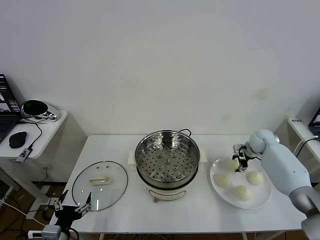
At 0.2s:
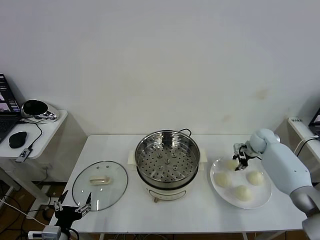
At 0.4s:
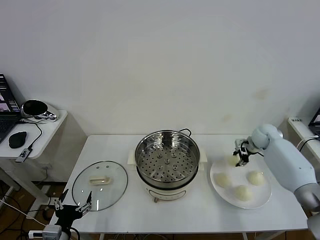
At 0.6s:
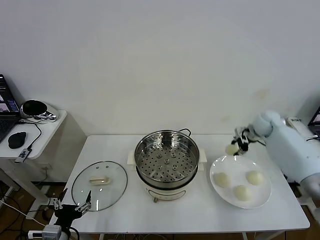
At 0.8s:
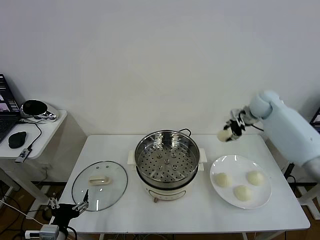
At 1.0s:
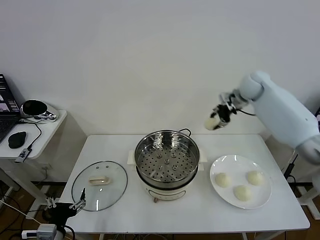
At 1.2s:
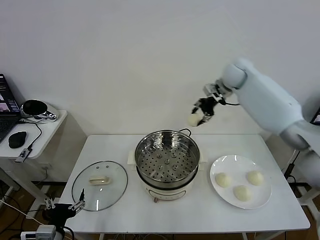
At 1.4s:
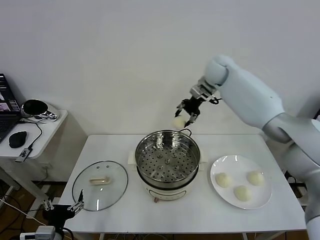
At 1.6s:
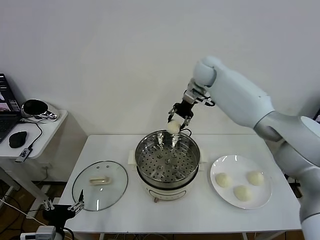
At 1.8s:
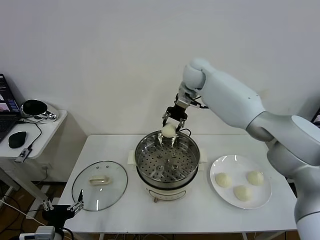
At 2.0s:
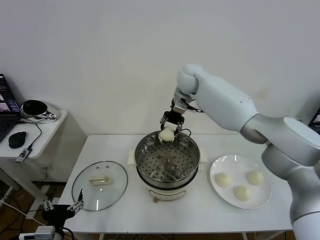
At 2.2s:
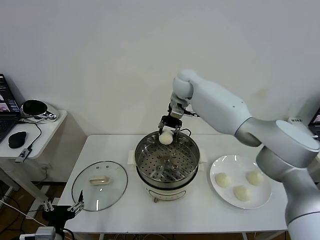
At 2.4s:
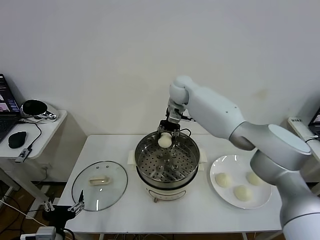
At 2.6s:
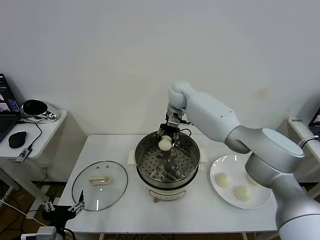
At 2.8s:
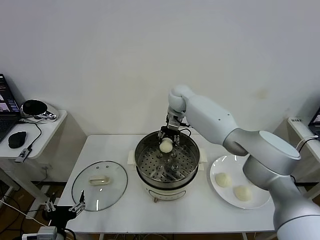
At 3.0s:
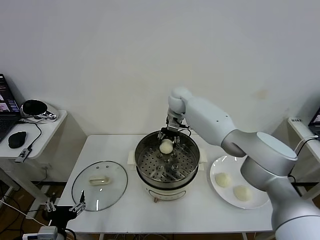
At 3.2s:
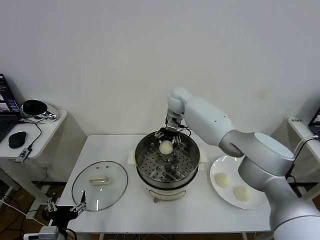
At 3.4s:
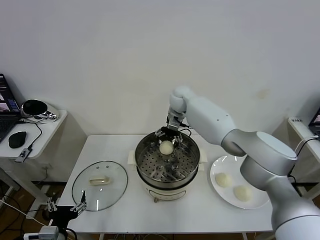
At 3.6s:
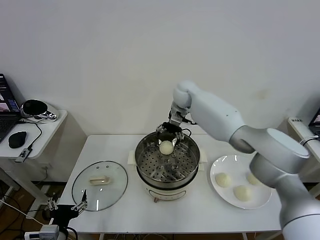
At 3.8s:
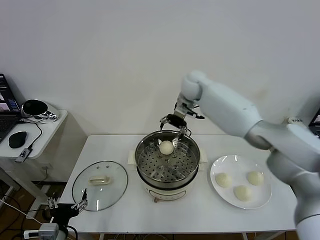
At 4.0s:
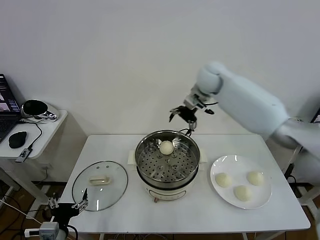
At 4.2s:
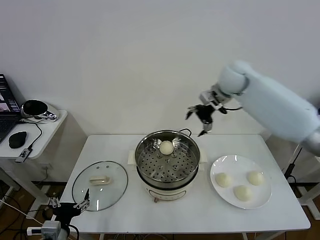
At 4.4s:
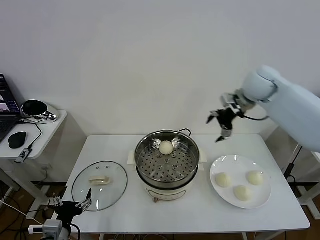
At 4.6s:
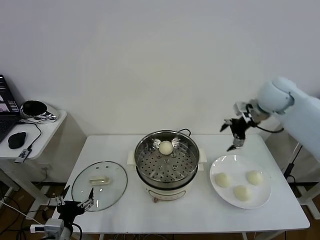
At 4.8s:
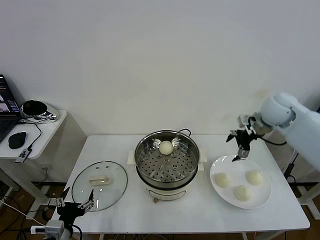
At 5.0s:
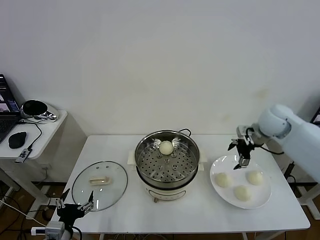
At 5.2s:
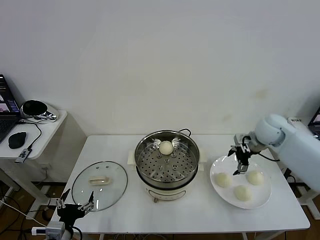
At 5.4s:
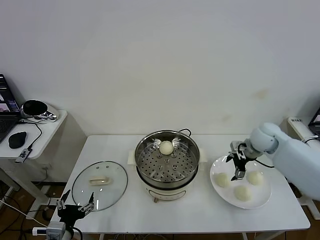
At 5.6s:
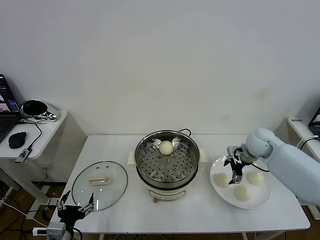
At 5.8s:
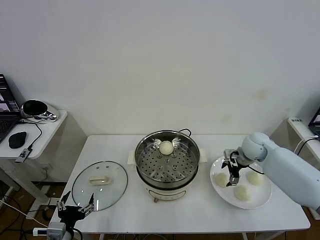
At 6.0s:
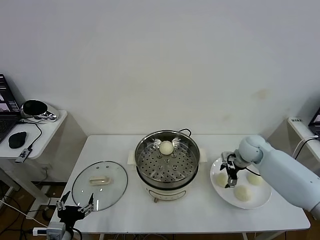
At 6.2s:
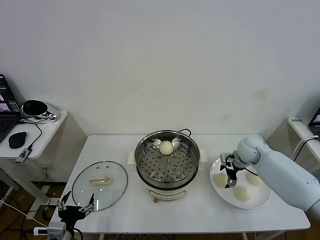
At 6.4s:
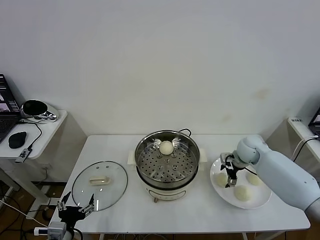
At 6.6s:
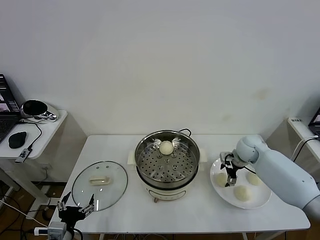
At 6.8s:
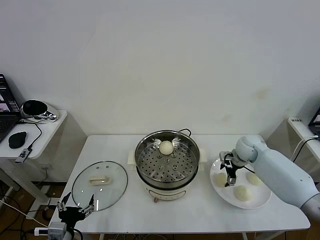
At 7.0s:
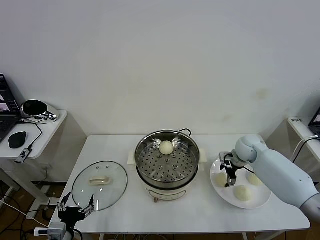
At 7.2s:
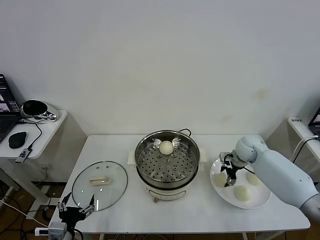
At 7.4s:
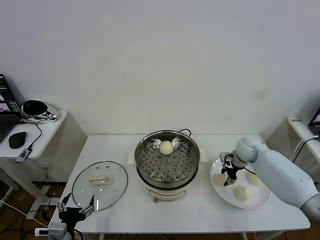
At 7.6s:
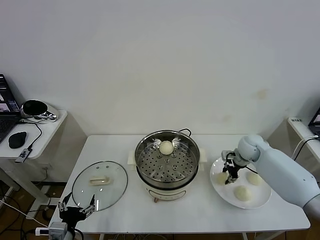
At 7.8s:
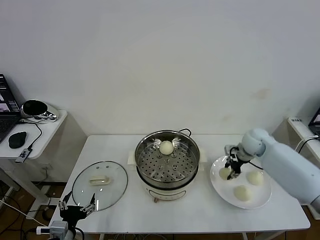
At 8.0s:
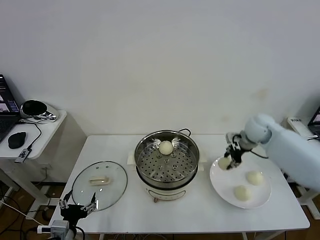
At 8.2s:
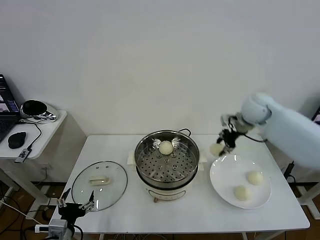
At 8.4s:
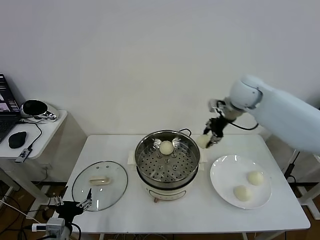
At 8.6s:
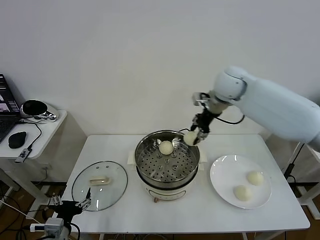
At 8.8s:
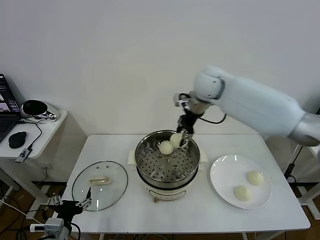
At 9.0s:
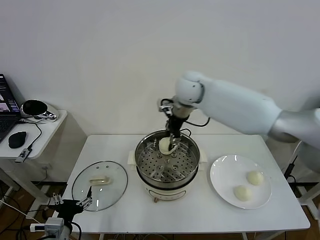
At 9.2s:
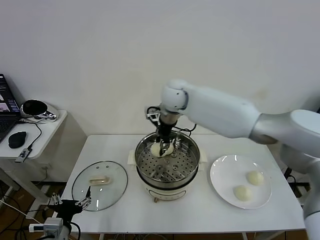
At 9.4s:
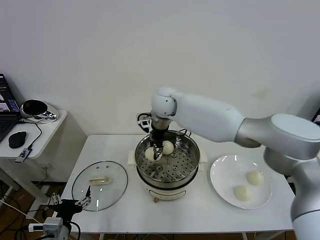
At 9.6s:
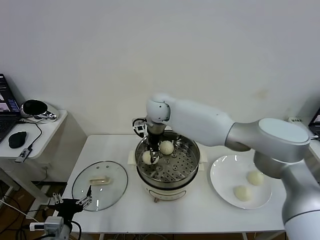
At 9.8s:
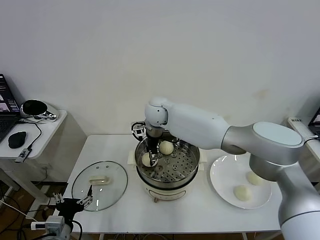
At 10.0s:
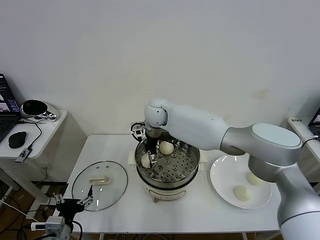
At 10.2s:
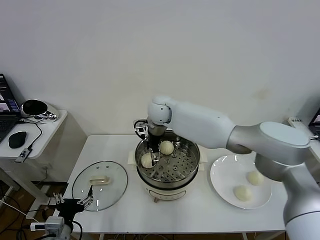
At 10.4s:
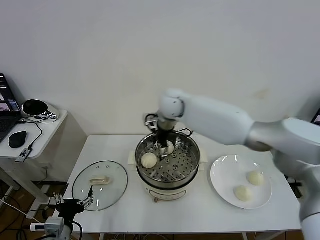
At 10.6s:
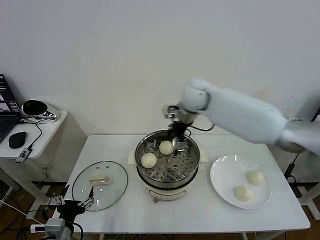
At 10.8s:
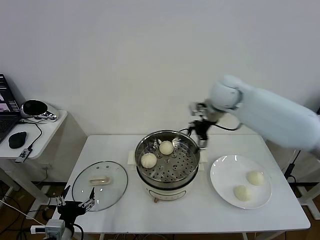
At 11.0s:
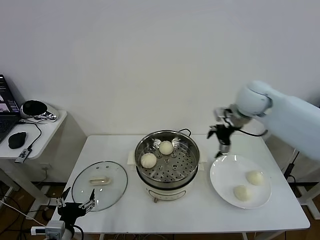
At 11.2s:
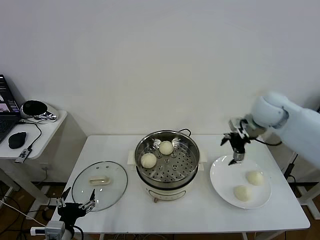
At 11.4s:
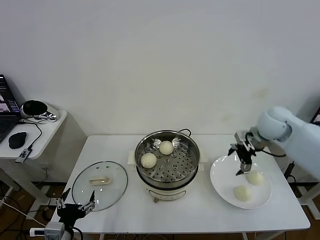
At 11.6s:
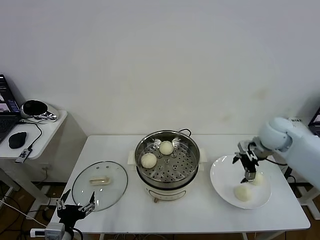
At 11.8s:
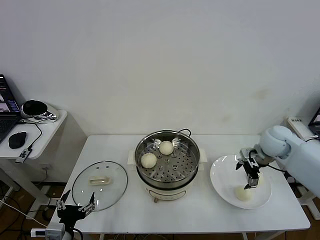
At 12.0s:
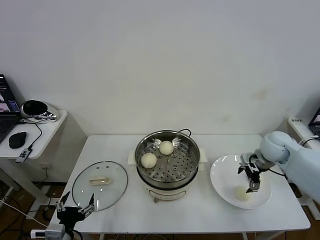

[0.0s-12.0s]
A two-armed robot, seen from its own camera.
Task of the whole recording: take steamed baozi put them in steamer then cover it.
Step, 0.2s to 3.4s: Place the baozi on the steamer with right gripper.
Step, 3.6s to 7.4s: Grasp the baozi in the plate with right gripper.
Step, 7.6s to 10.2s: Place the baozi on the steamer with right gripper.
0.0s to 1.6s: The right gripper moves to the left and upward, roughly 40 cm.
1.6s to 3.0s: The right gripper shifts roughly 15 cm downward and to the left, and opens its fingers.
3.0s to 4.4s: The right gripper is displaced to the right, upward and backward by roughly 30 cm, and opens.
4.4s to 6.0s: The right gripper travels downward by some 25 cm.
6.0s to 7.6s: The right gripper closes.
7.6s to 9.0s: The right gripper heads to the left and upward, covering approximately 35 cm.
9.0s to 10.4s: The right gripper goes downward and returns, some 10 cm each way, and opens its fingers.
10.4s to 12.0s: The right gripper travels to the right by roughly 30 cm.

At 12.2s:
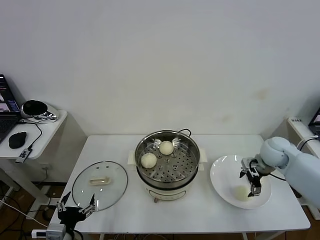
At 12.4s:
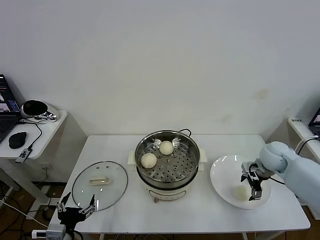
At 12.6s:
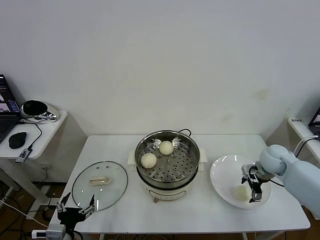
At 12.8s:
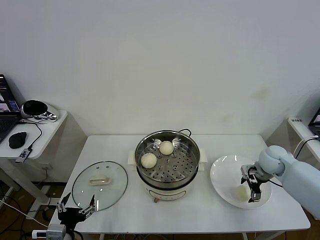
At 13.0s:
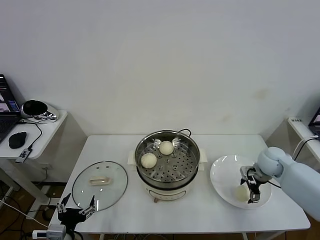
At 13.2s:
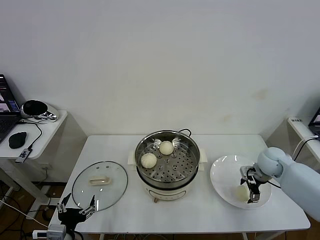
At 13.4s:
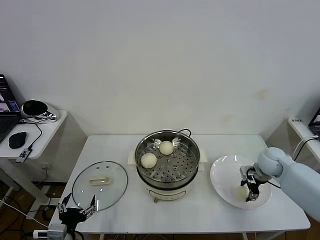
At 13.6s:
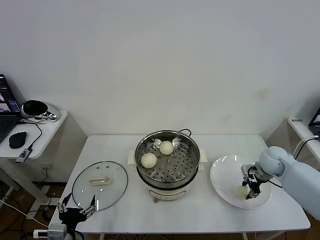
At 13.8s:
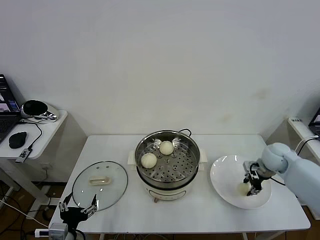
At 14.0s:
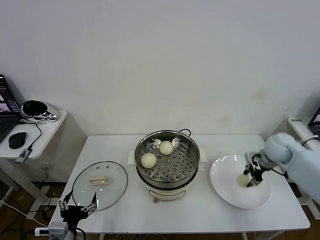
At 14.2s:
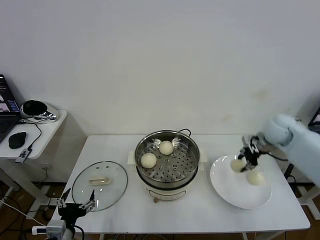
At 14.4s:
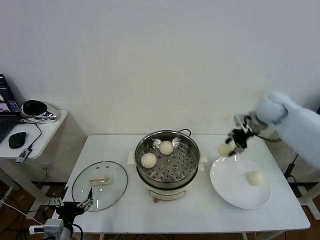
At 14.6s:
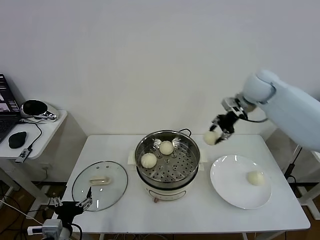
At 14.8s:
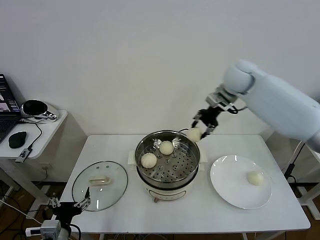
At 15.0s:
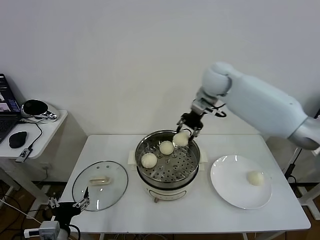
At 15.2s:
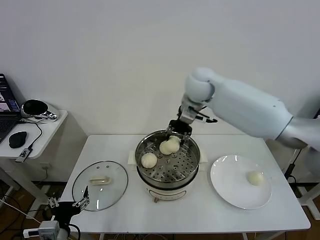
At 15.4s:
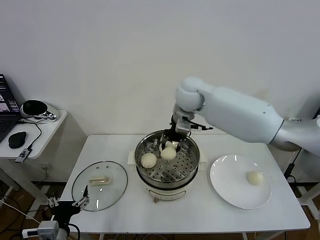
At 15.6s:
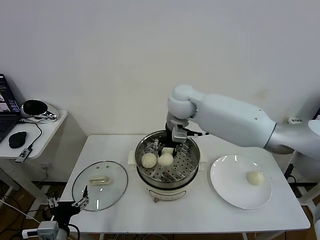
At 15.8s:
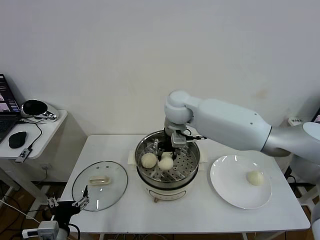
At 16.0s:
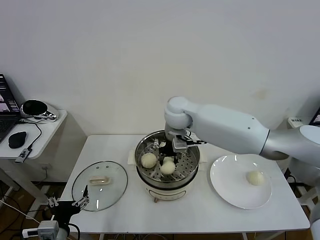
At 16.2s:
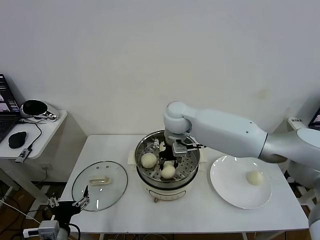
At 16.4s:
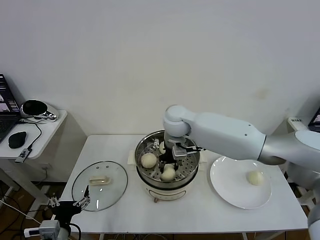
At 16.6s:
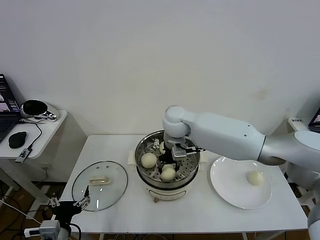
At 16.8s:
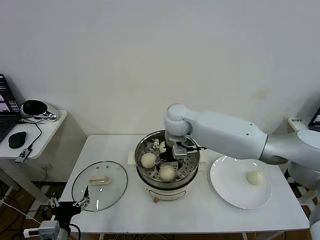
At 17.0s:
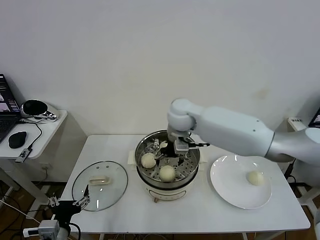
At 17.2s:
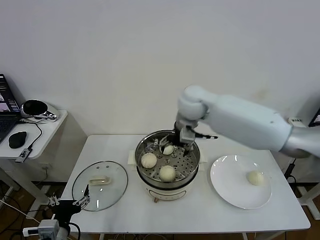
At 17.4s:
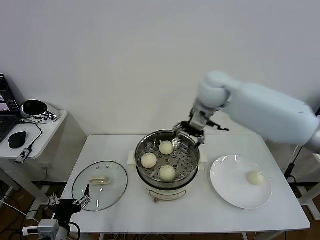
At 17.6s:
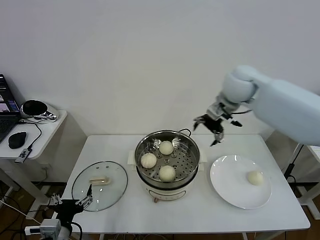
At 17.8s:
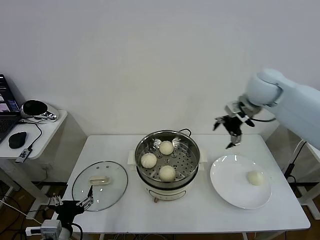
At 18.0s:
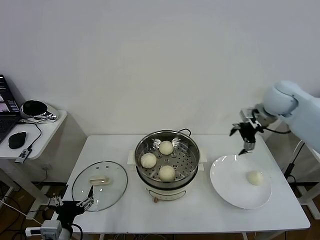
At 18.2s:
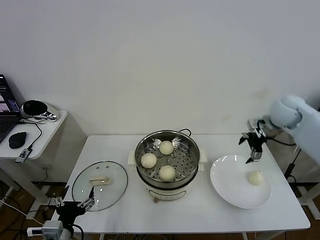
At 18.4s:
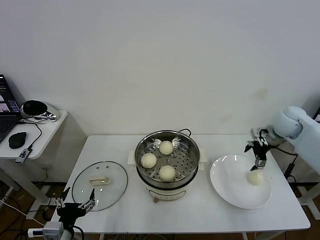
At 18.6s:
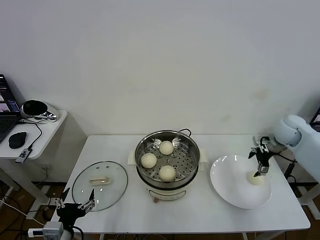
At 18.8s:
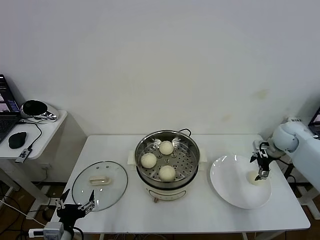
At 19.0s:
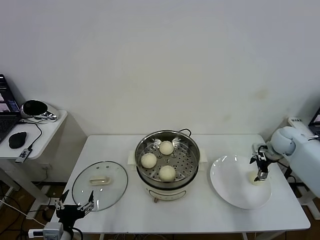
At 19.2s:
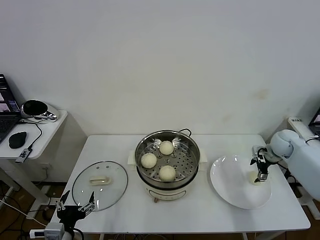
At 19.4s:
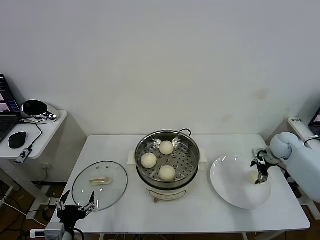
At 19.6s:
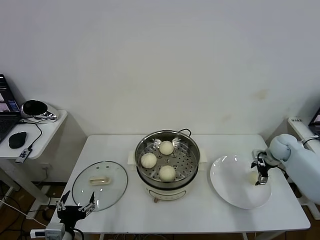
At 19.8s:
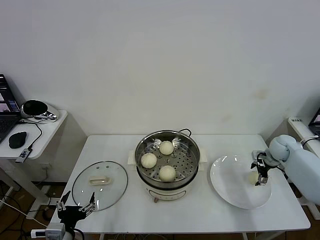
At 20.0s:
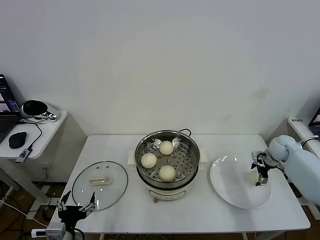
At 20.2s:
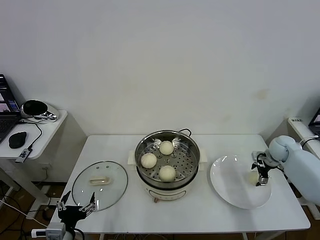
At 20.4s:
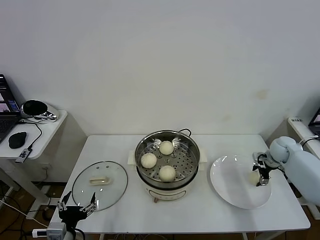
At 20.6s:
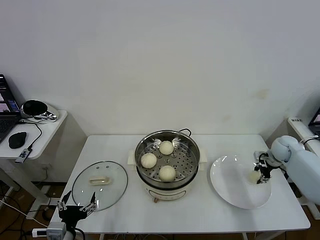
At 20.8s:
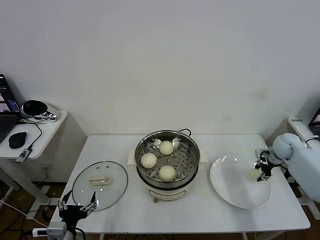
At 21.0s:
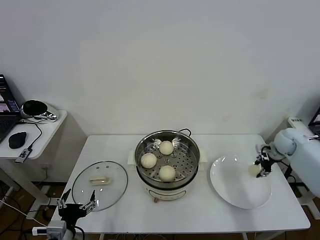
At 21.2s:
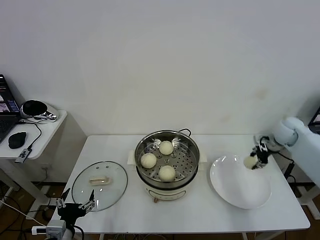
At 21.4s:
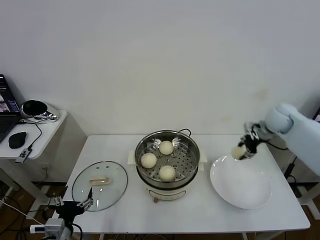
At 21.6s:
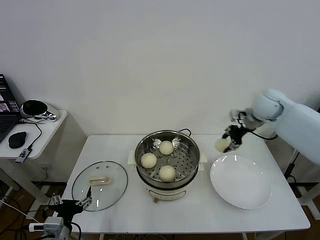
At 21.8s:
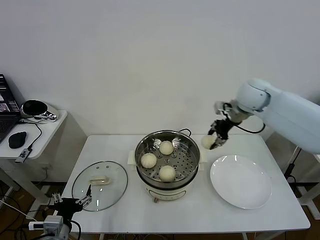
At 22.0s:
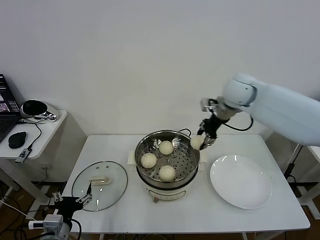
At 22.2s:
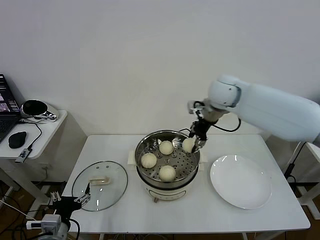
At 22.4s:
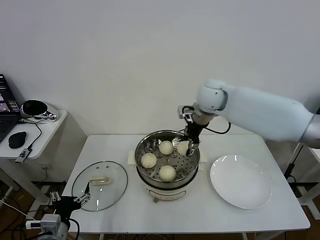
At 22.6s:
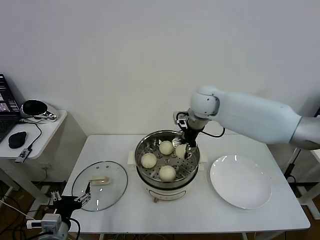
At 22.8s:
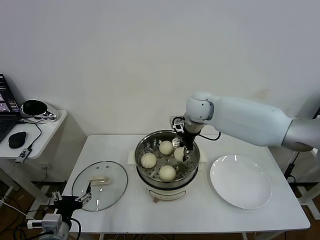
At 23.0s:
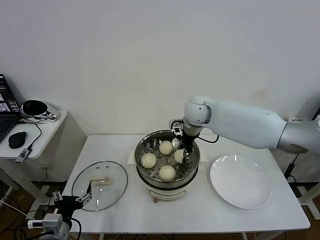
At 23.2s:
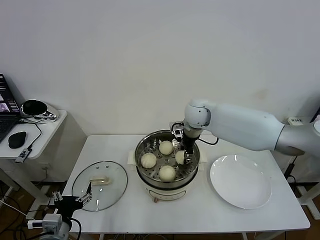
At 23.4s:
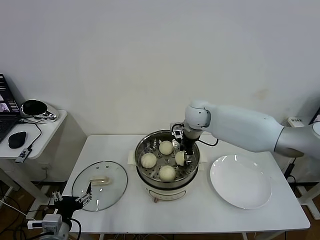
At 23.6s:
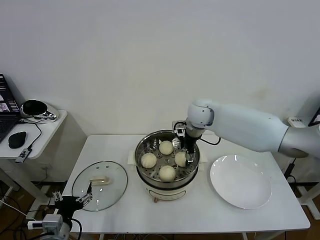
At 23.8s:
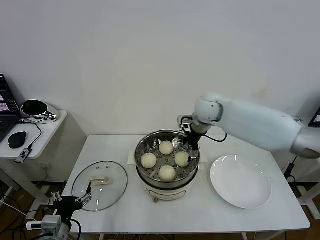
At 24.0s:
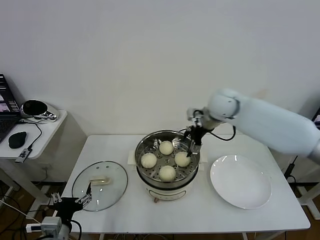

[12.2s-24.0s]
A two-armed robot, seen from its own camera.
Task of the whole recording: take steamed baozi put them in steamer then cover it.
Step, 13.8s to 17.2s: Place the baozi on the steamer with right gripper.
Step, 17.4s to 20.6s: Grasp the baozi in the plate with right gripper.
Step, 20.8s to 23.8s: Place the baozi on the steamer with right gripper.
12.2s to 13.6s: The right gripper closes up.
13.6s to 15.2s: The right gripper goes about 40 cm to the left and upward.
15.2s to 16.6s: The right gripper is displaced downward, to the left and backward by about 10 cm, and opens.
16.6s to 18.2s: The right gripper shifts roughly 35 cm to the right, and opens.
18.2s to 19.6s: The right gripper goes some 20 cm downward and to the right.
19.6s to 21.0s: The right gripper closes.
21.0s to 22.6s: The right gripper moves to the left and upward, about 35 cm.
22.6s to 24.0s: The right gripper is displaced to the right by about 5 cm, and opens up.
